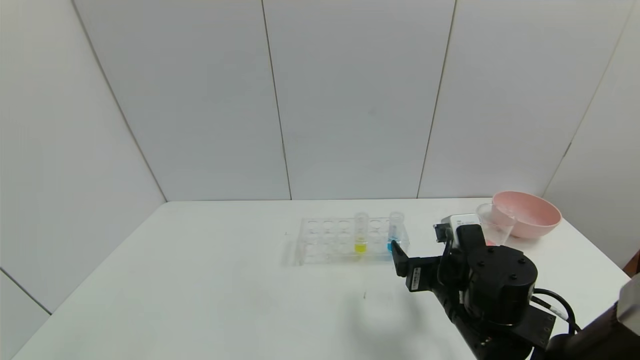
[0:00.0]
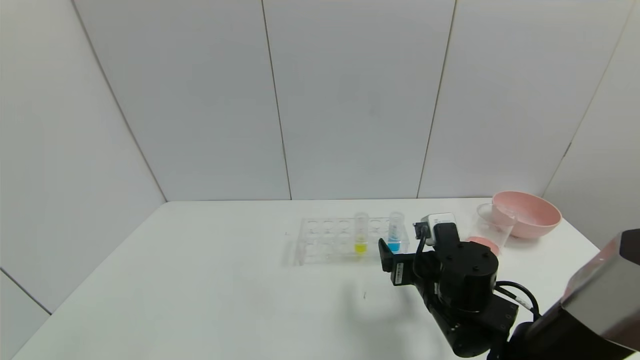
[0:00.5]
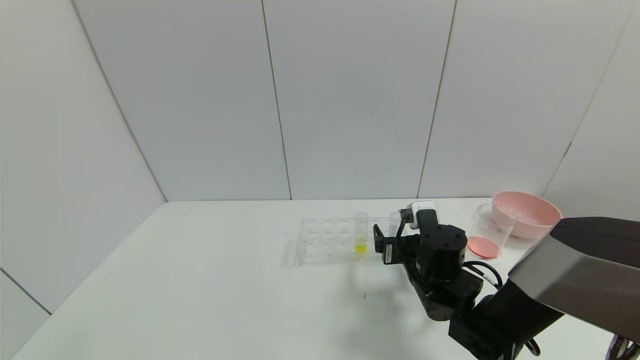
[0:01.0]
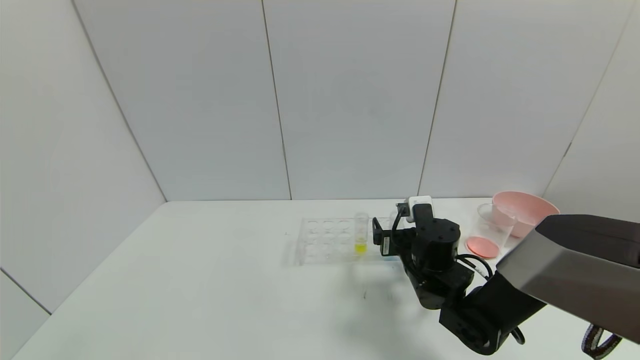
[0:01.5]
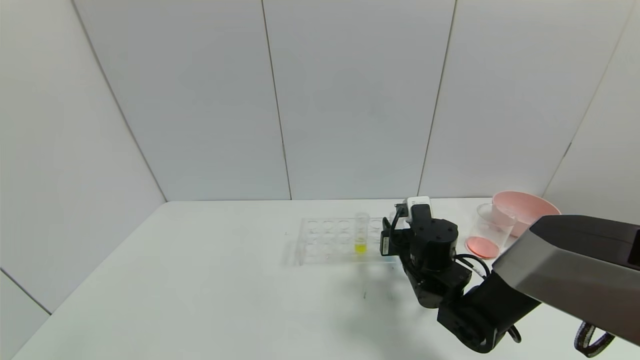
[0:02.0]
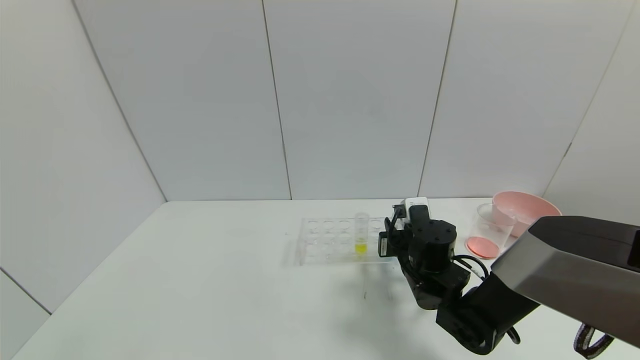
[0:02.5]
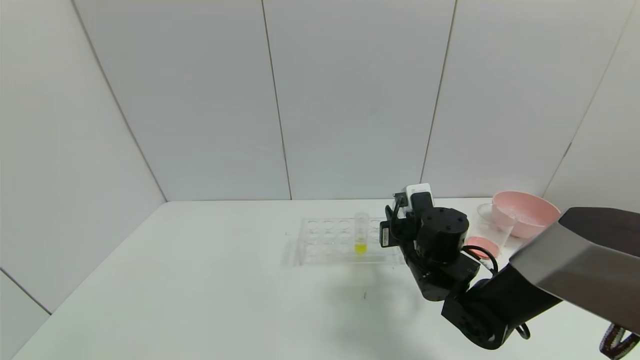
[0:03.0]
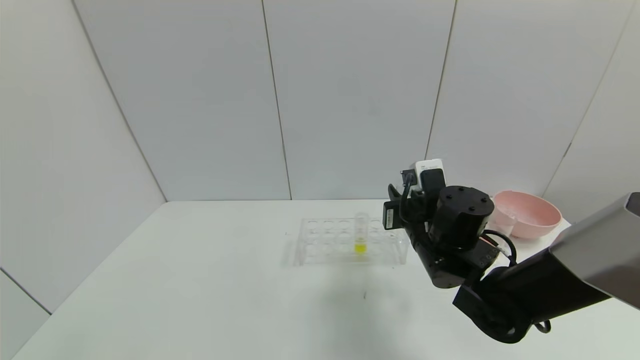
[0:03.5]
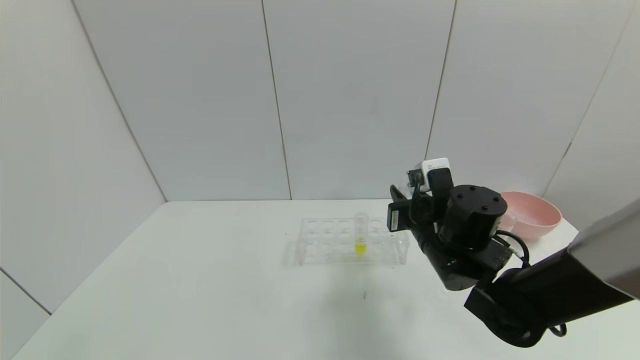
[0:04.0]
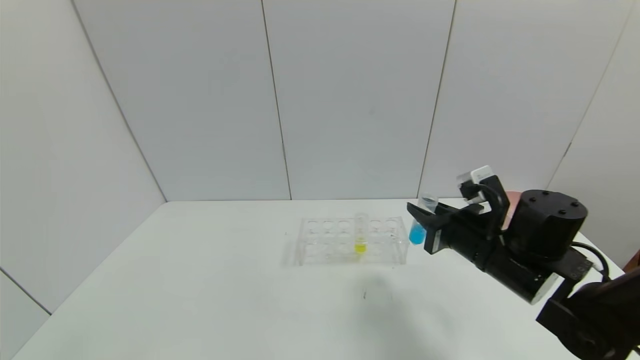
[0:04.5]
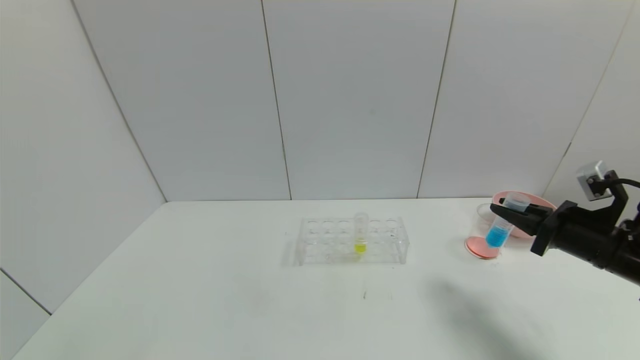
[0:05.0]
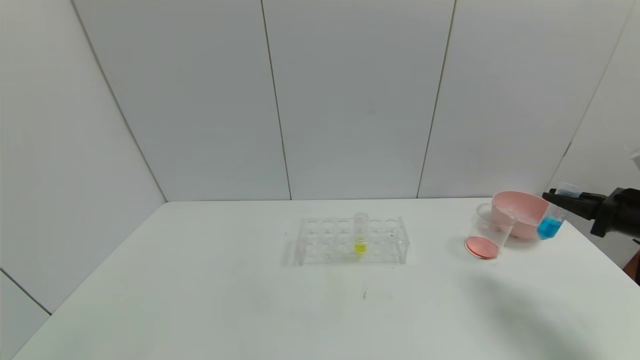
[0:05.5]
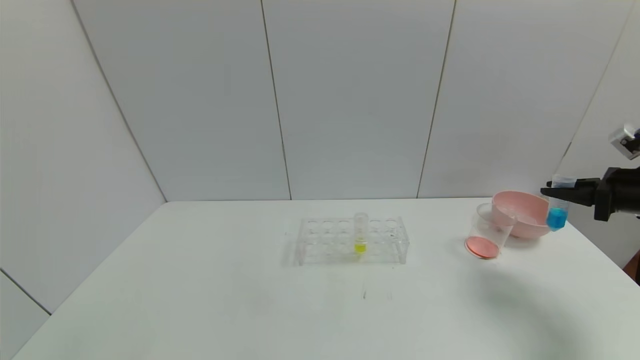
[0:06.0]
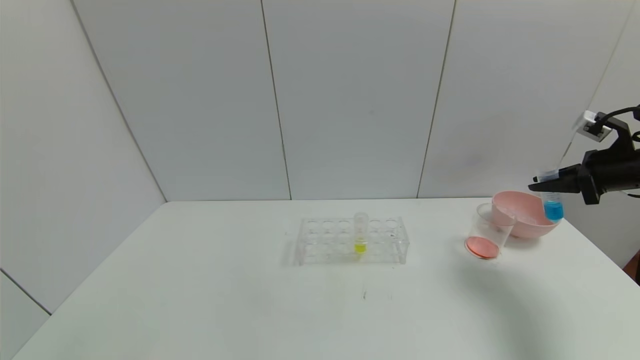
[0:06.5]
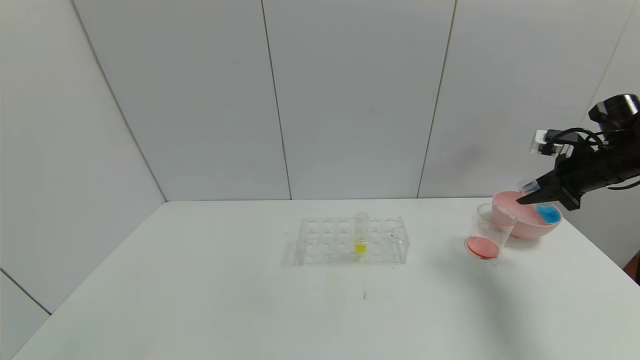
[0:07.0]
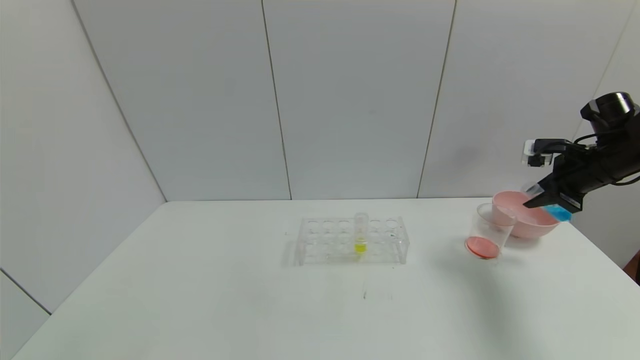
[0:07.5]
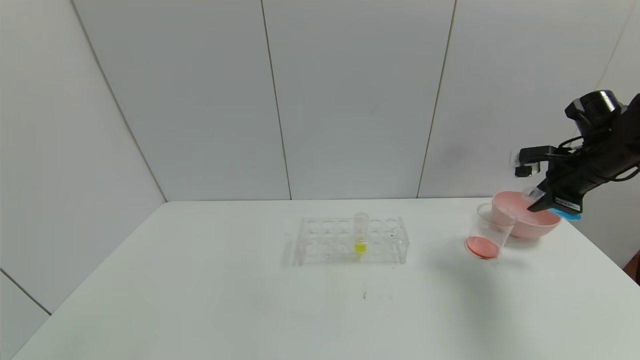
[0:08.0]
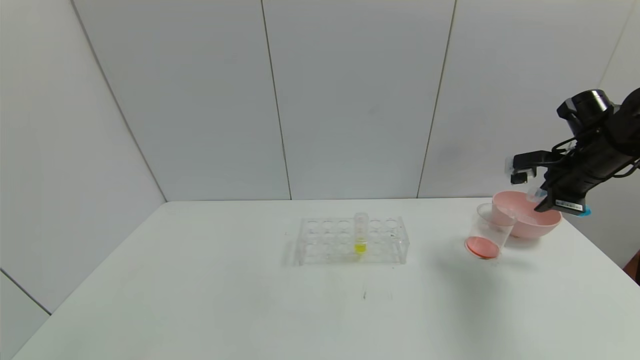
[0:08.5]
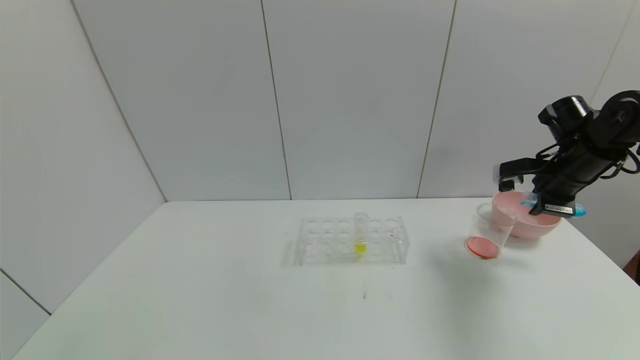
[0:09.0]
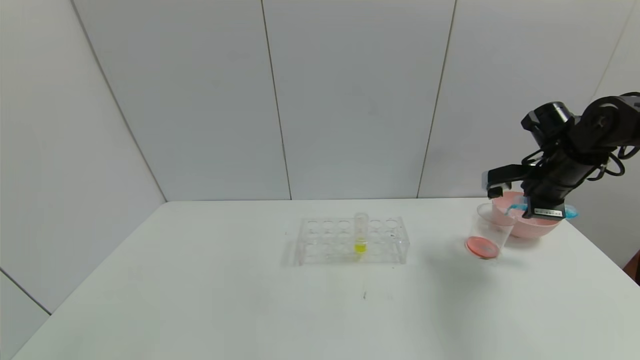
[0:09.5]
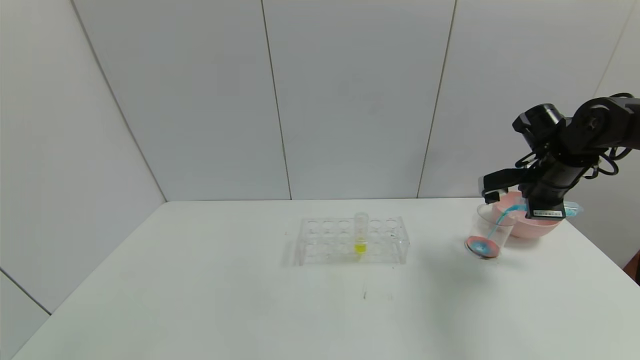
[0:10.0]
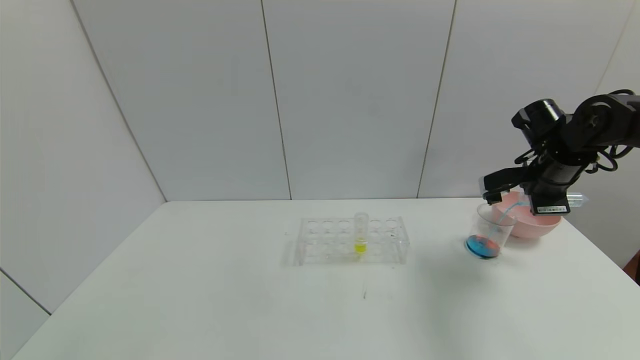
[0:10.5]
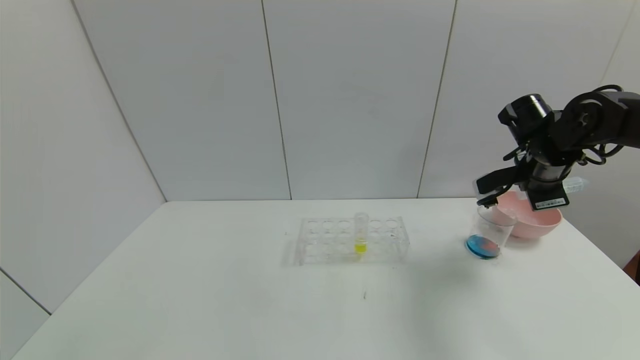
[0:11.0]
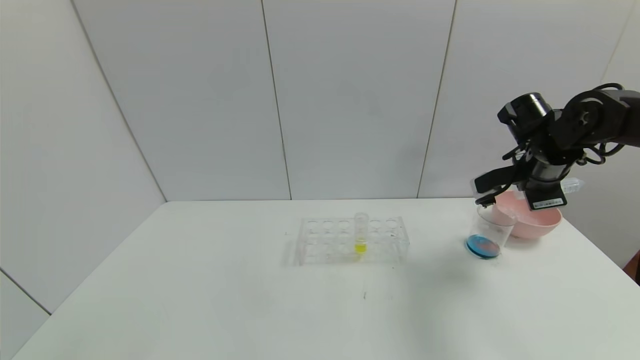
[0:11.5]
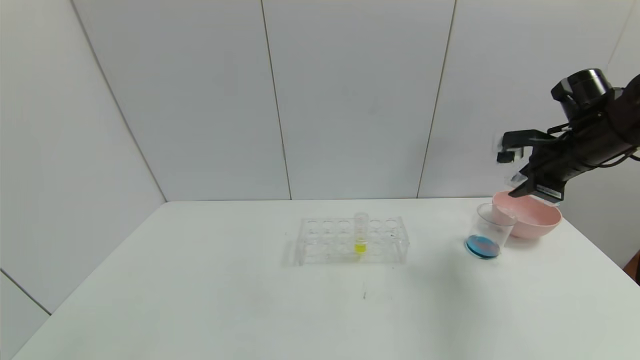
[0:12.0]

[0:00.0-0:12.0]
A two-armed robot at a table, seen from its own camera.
Task of the whole recording: pick up the test tube with red pigment and the test tube with blue pigment by grippers and pour them into the container.
Step, 0:00.0 to 0:05.5: Pick up the test tube containing the blue reagent with right gripper.
0:00.0 to 0:02.0: The right gripper heads forward, covering some 10 cm, and closes its fingers.
0:02.0 to 0:04.0: The right gripper shifts roughly 10 cm upward.
0:04.0 to 0:06.0: The right gripper travels to the right by about 30 cm.
0:06.0 to 0:08.0: The right gripper moves forward and to the left, about 10 cm.
0:08.0 to 0:10.0: The right gripper moves to the left, approximately 5 cm.
0:10.0 to 0:12.0: The right gripper shifts by roughly 5 cm.

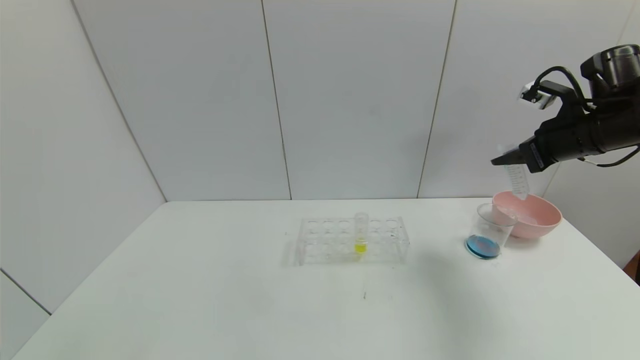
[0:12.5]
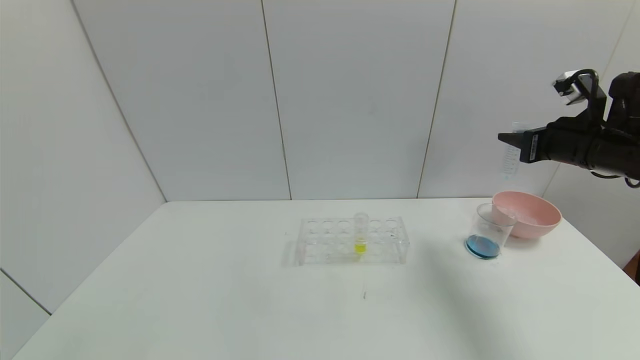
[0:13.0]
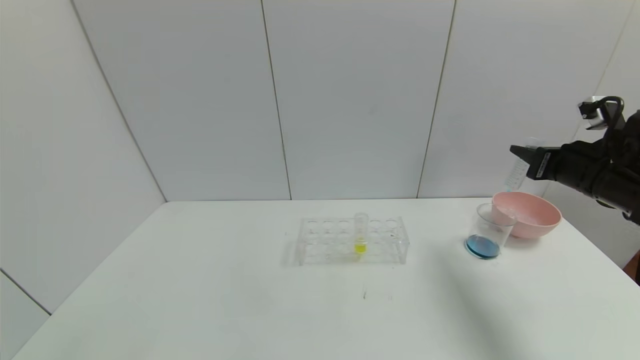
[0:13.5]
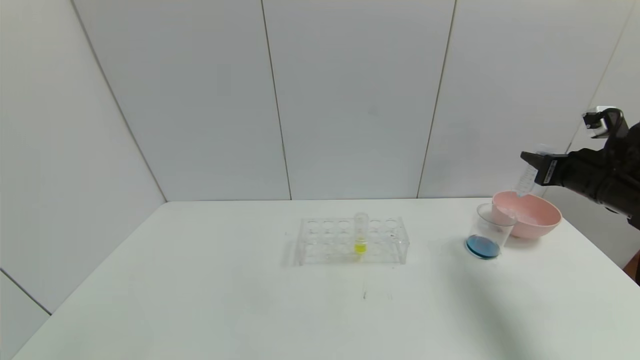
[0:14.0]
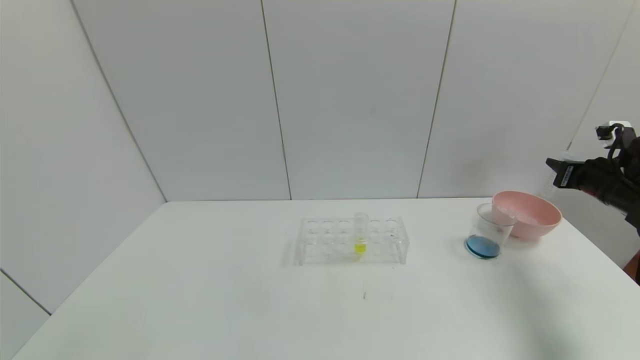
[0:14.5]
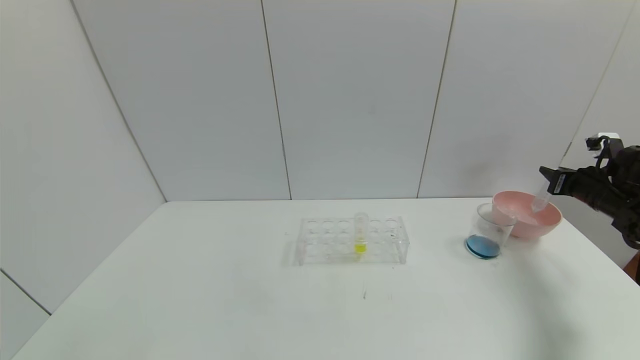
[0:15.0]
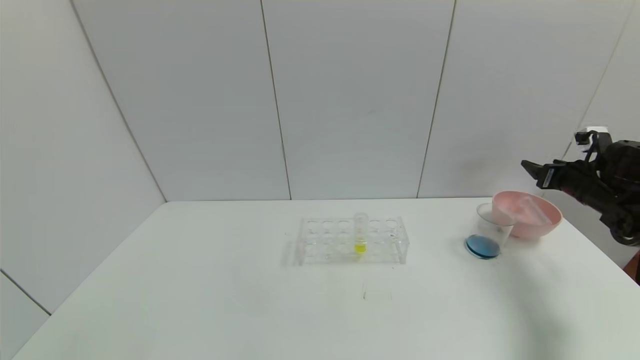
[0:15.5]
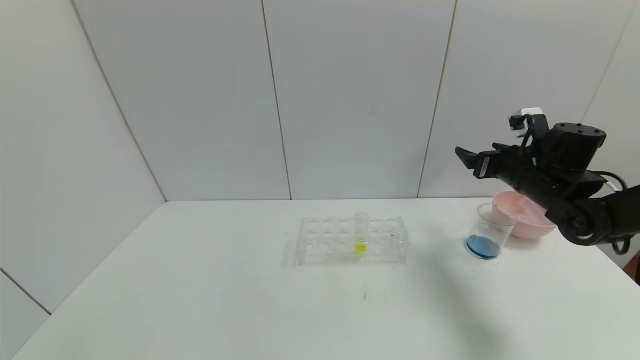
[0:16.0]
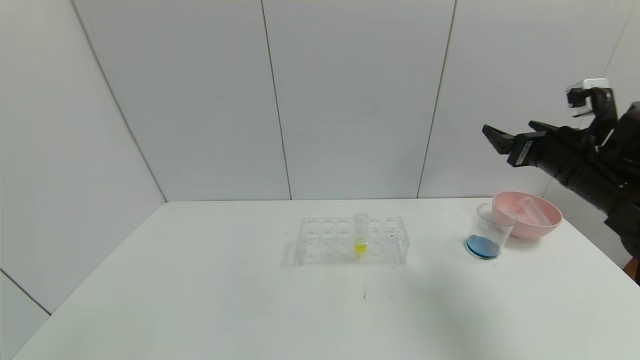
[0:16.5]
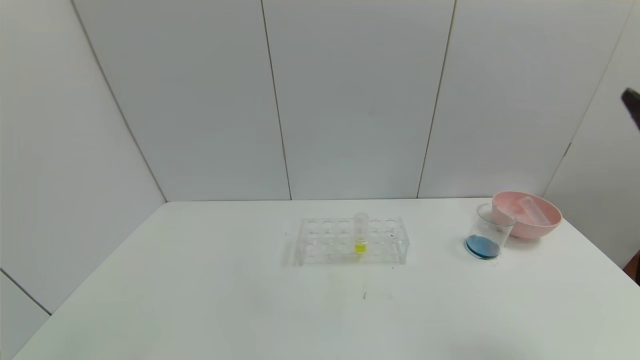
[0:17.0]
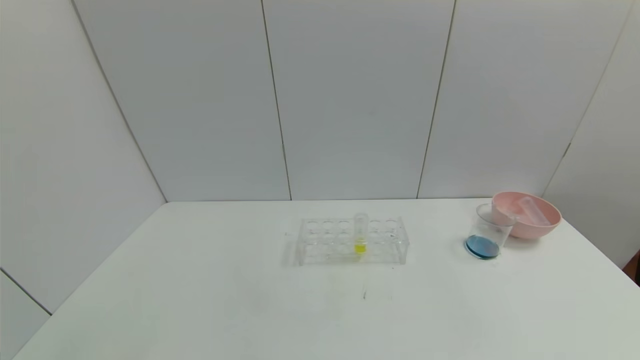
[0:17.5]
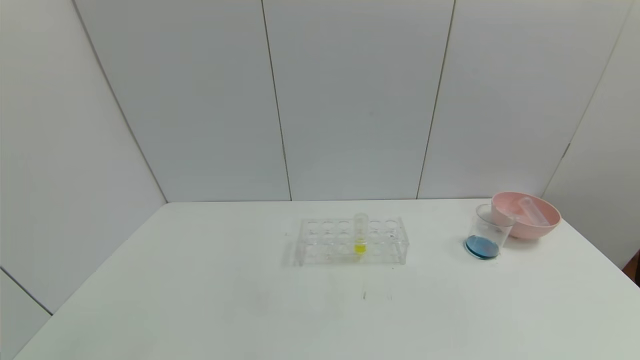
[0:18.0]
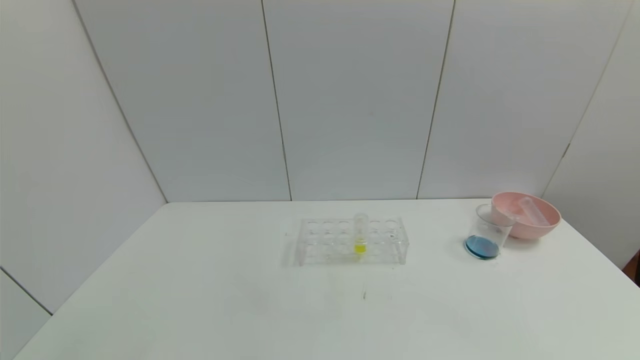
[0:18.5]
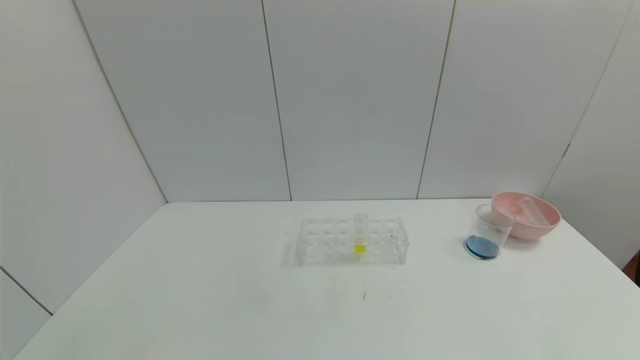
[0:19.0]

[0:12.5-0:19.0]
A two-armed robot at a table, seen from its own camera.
Task of the whole recording: pick up the test tube with red pigment and the test tube with blue pigment by grippers and pour them into the container.
Step, 0:12.5 to 0:15.5: Place the test tube into the bowl with right gripper.
0:12.5 to 0:14.5: The right gripper moves to the right and downward, roughly 15 cm.
0:14.5 to 0:17.0: The right gripper travels backward, upward and to the left by approximately 20 cm, and opens its fingers.

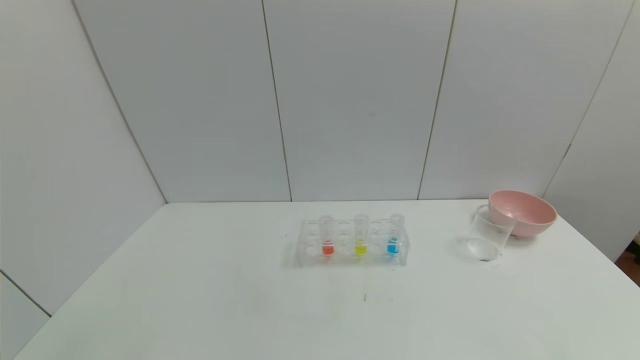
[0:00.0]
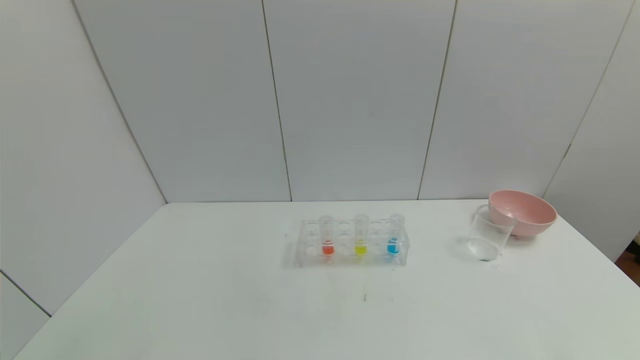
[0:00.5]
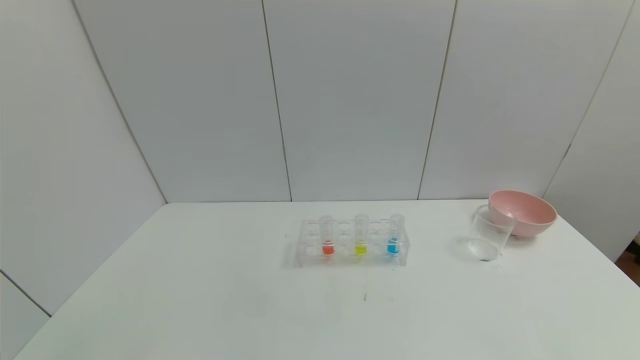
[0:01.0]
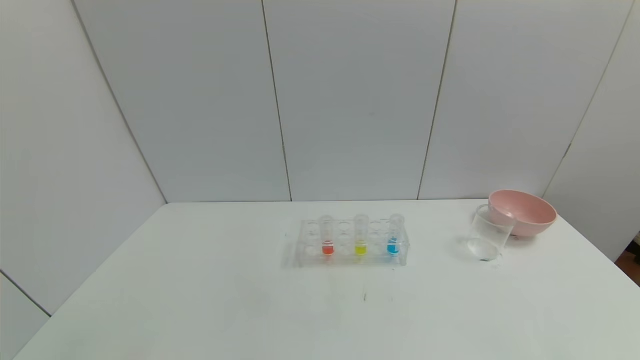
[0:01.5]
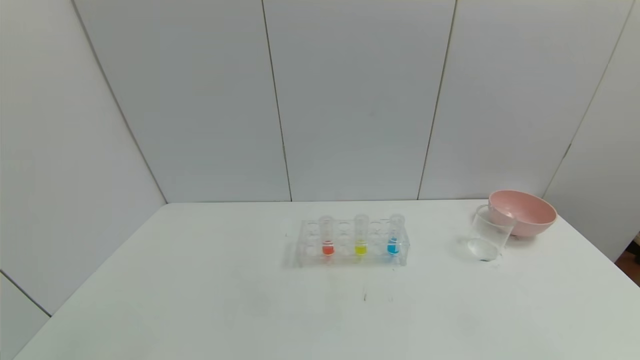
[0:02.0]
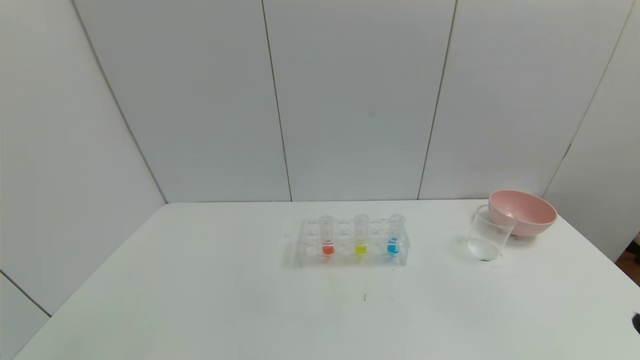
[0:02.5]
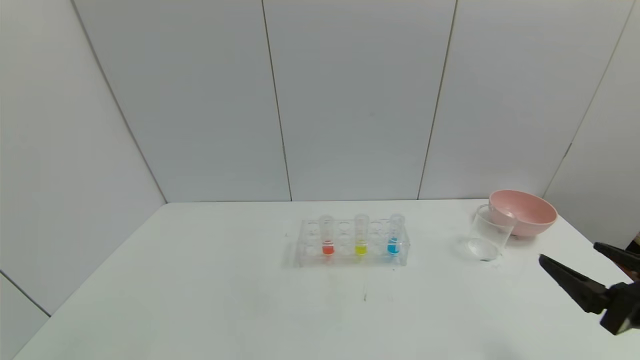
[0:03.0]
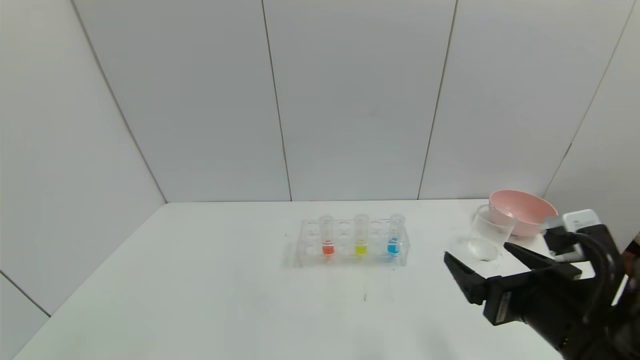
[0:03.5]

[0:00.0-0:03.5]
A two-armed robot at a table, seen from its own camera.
Task of the whole recording: pick up the test tube with red pigment and the test tube with blue pigment by grippers and pour them into the container.
0:02.0 to 0:03.5: The right gripper is displaced forward and to the left by approximately 25 cm.
